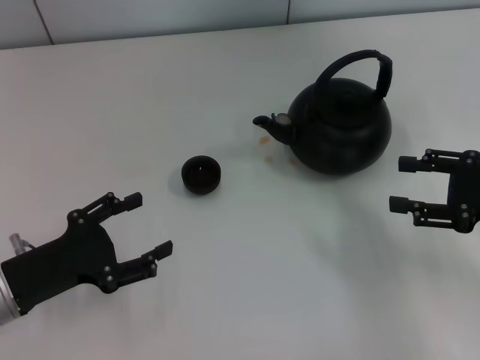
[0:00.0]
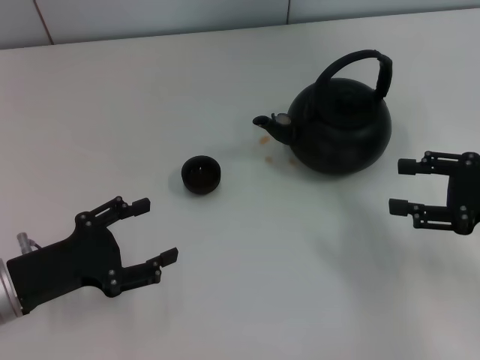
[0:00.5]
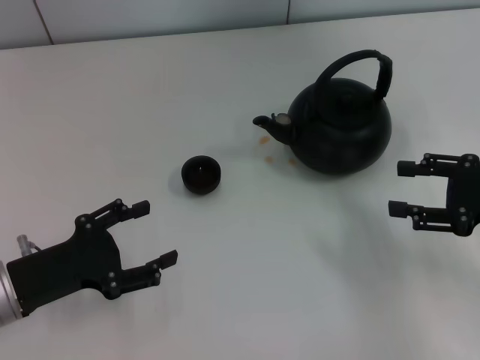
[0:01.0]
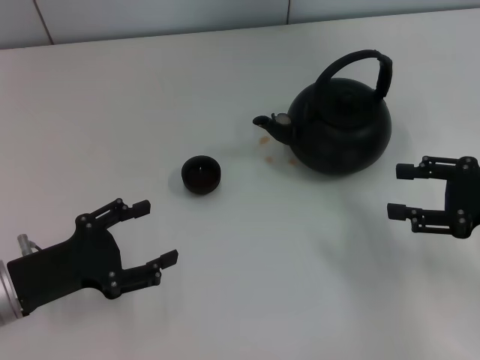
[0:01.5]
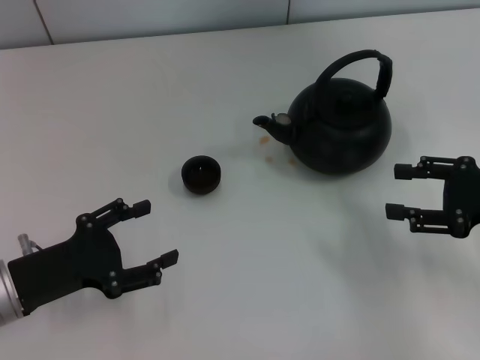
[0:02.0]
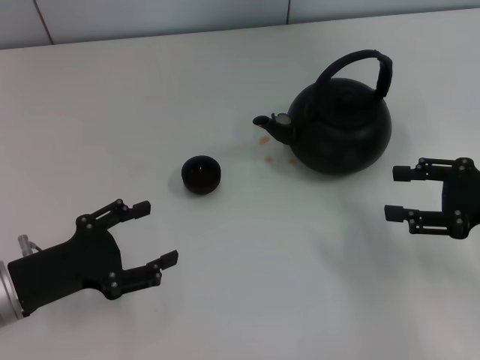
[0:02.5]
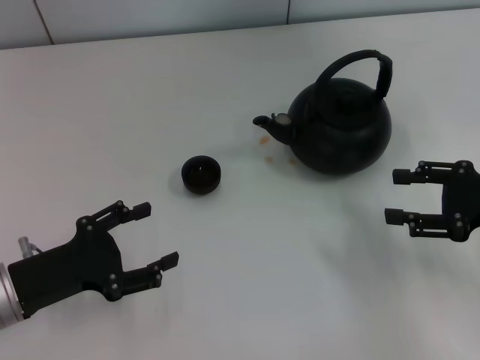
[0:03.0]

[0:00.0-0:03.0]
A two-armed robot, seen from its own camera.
Task of the whole recording: Grasp the handle of the teapot with one hand and pour tea into the teacup.
0:00.0 to 0:03.0: Both grippers stay put.
